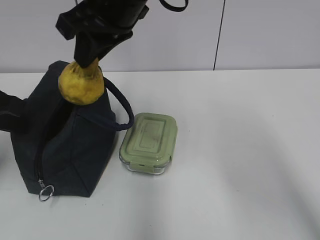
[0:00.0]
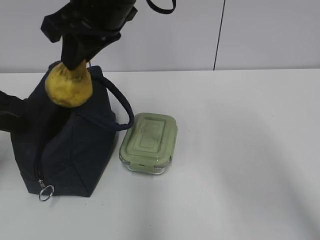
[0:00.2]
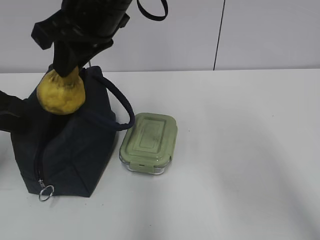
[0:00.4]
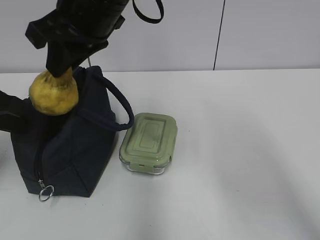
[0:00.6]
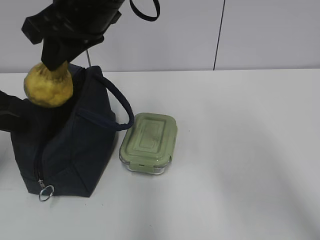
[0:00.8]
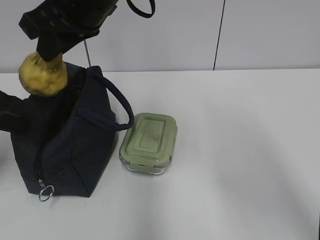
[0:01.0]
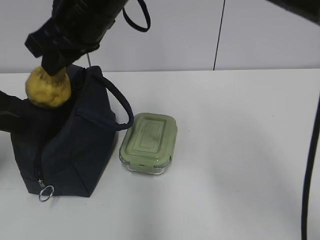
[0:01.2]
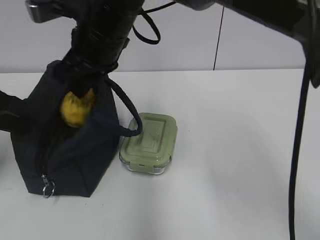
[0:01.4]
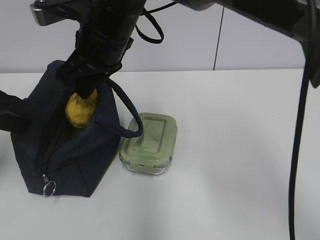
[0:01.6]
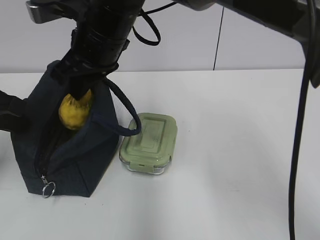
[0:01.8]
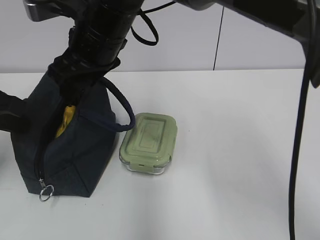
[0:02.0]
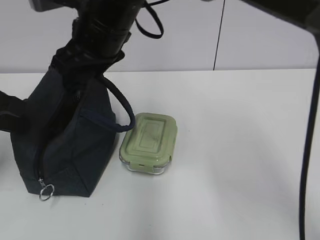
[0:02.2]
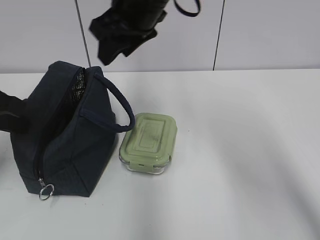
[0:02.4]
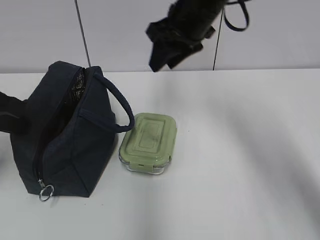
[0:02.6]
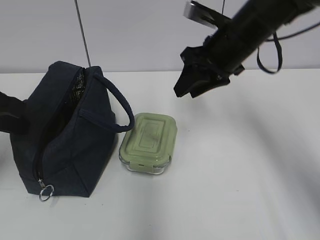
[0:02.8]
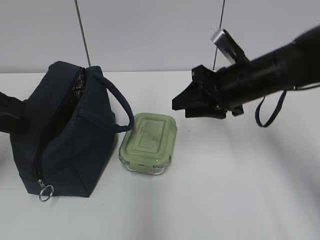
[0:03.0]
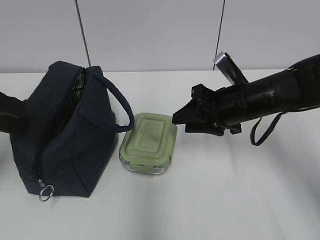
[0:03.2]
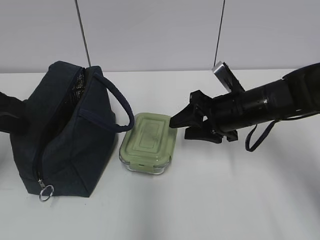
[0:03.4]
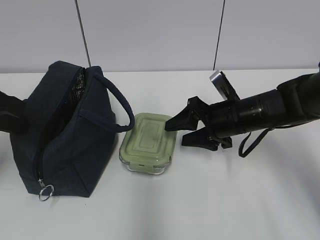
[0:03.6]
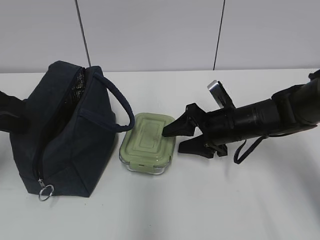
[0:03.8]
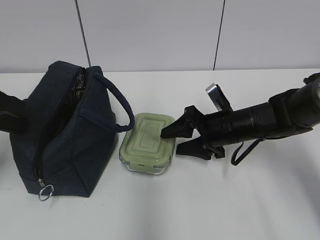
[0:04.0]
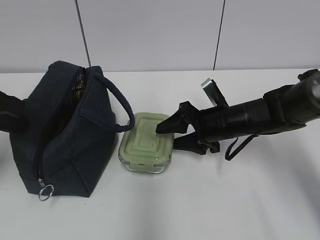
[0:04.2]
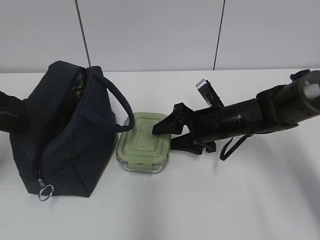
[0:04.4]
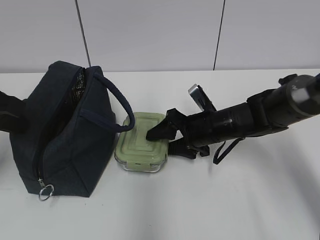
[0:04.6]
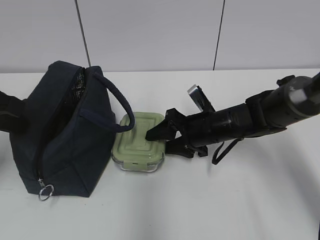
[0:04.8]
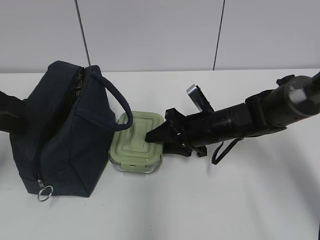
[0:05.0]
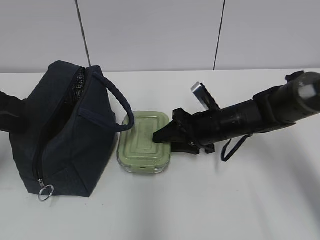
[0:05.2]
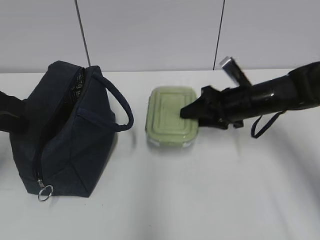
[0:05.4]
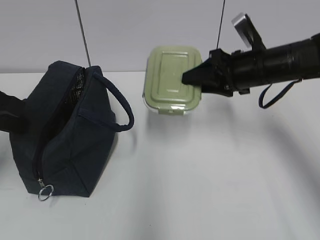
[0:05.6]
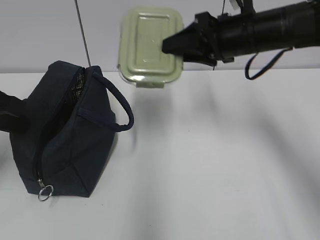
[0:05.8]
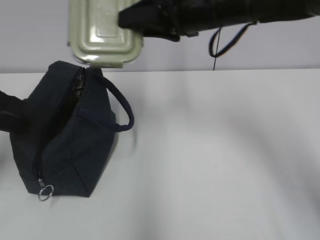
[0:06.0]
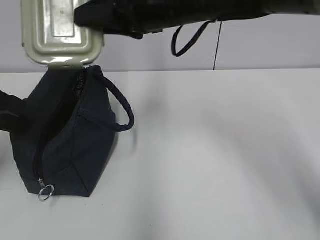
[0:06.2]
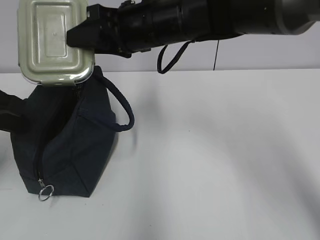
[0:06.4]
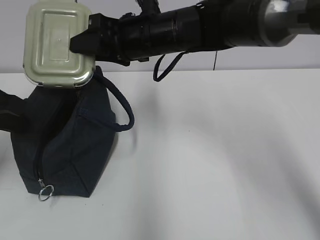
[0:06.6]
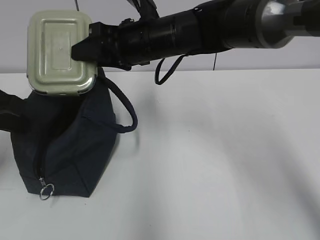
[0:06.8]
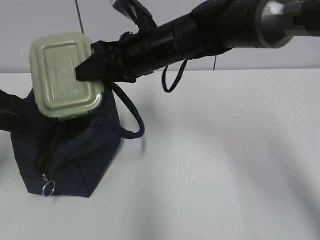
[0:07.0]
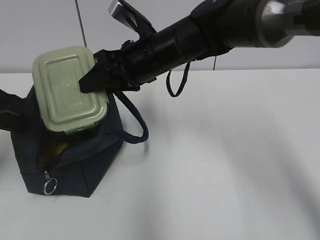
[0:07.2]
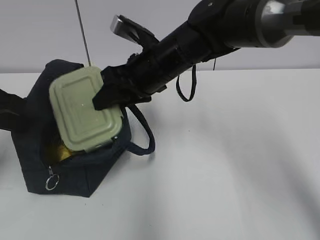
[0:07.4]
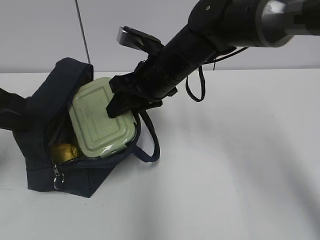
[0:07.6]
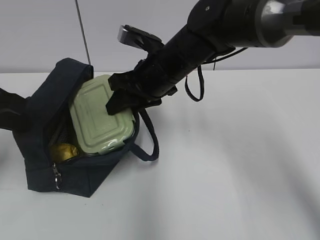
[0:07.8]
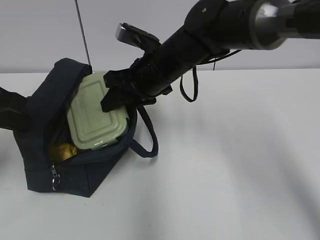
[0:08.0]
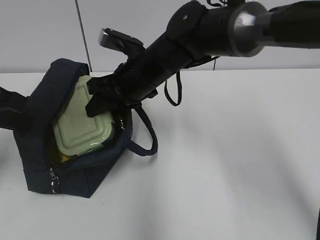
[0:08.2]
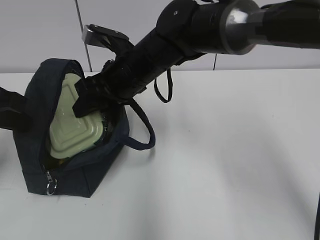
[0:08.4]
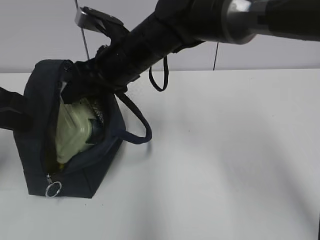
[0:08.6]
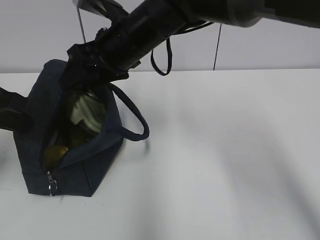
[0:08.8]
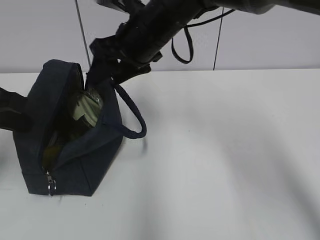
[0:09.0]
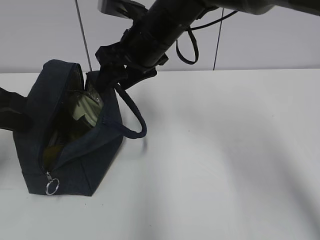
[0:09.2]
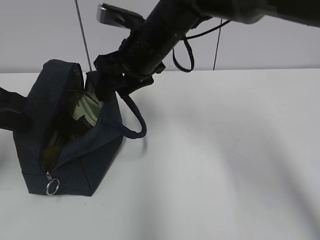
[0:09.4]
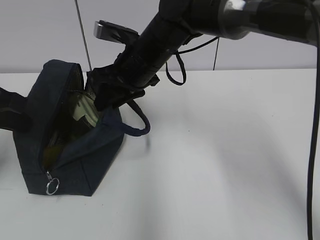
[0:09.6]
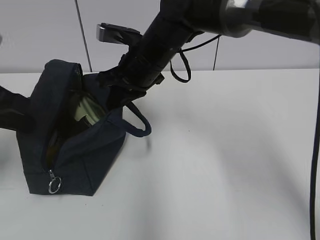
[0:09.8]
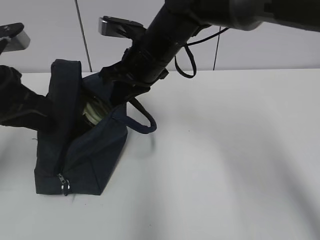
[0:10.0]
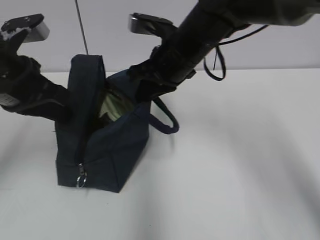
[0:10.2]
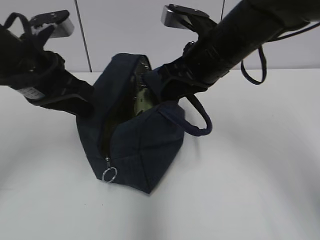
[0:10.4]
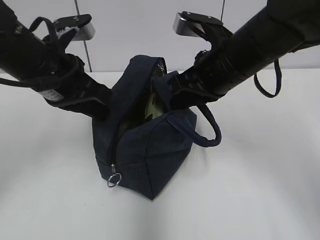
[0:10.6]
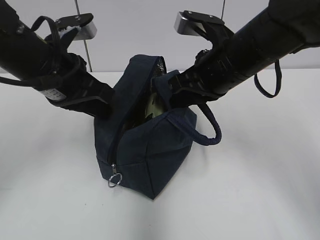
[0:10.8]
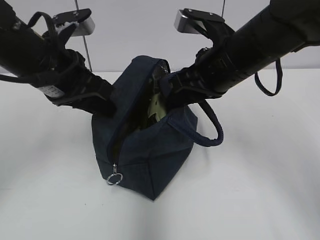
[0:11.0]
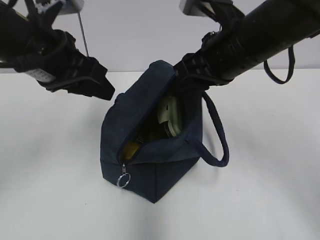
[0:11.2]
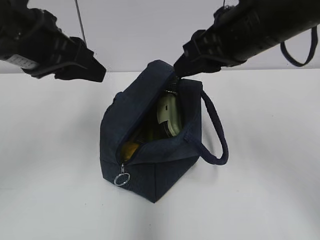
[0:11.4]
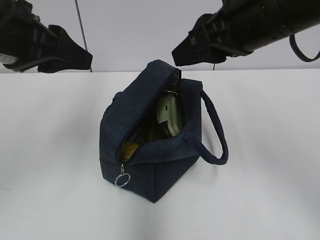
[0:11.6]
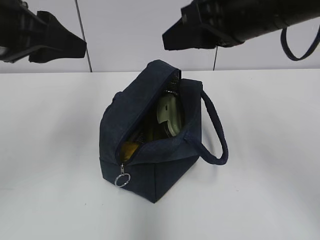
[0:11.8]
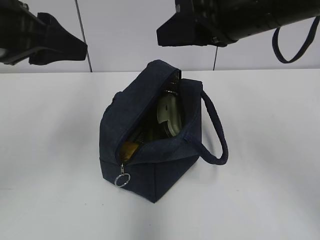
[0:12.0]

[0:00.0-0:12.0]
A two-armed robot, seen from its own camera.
0:00.0 to 0:01.6: The right gripper heads downward, covering approximately 5 cm.
0:01.6 to 0:03.0: The right gripper travels to the right and downward by approximately 20 cm.
0:03.0 to 0:04.4: The right gripper heads downward, covering approximately 10 cm.
0:04.4 to 0:06.0: The right gripper travels upward by roughly 20 cm, and closes its fingers.
0:06.0 to 0:07.6: The right gripper goes roughly 10 cm downward.
0:07.6 to 0:09.0: The right gripper travels upward by approximately 5 cm.
0:09.0 to 0:10.4: Both grippers move to the right, roughly 10 cm. The right gripper closes its fingers.
0:10.4 to 0:12.0: The grippers both shift upward and backward by some 10 cm. The right gripper opens its fingers. The left gripper opens up.

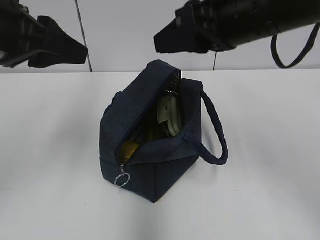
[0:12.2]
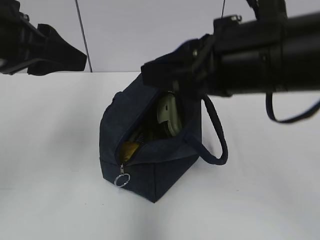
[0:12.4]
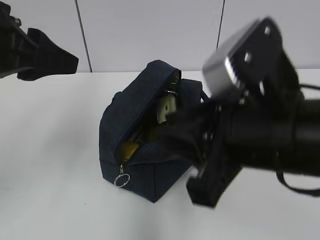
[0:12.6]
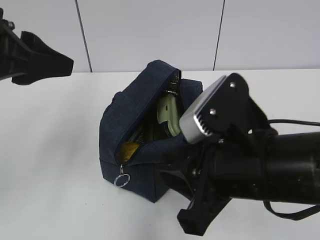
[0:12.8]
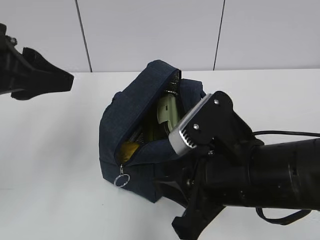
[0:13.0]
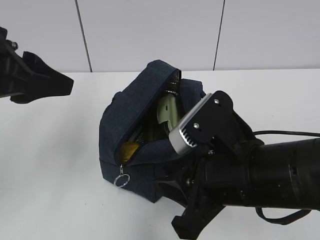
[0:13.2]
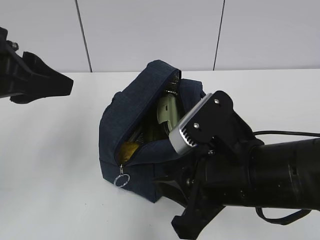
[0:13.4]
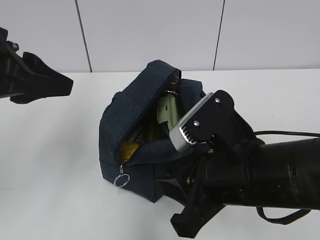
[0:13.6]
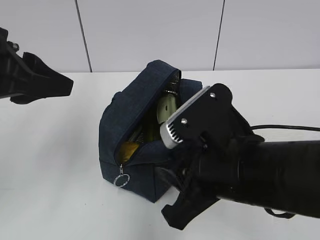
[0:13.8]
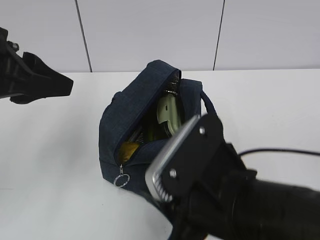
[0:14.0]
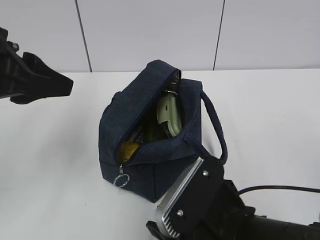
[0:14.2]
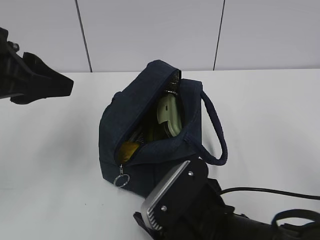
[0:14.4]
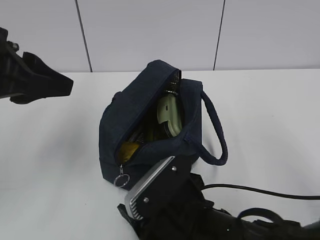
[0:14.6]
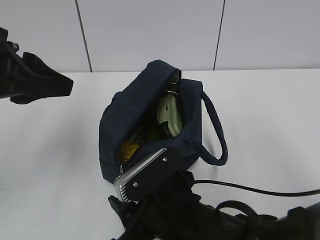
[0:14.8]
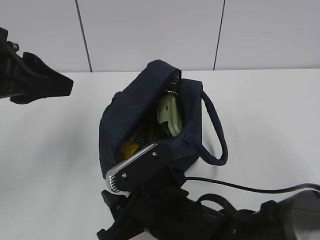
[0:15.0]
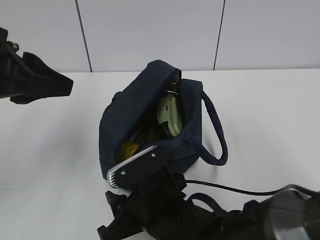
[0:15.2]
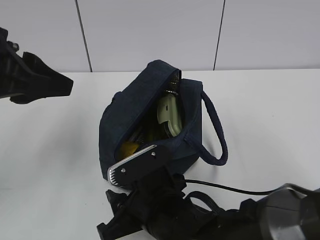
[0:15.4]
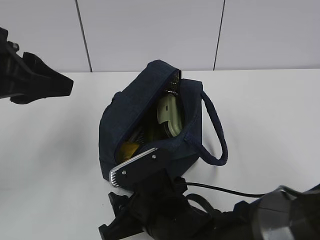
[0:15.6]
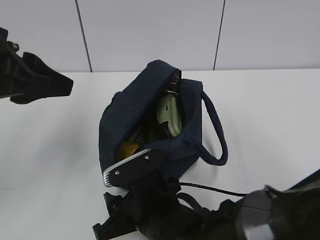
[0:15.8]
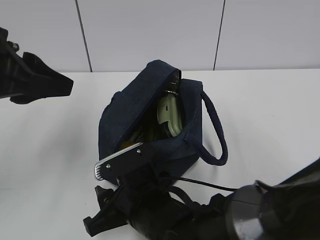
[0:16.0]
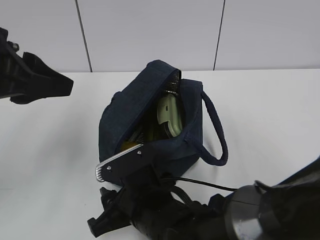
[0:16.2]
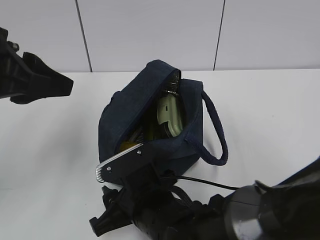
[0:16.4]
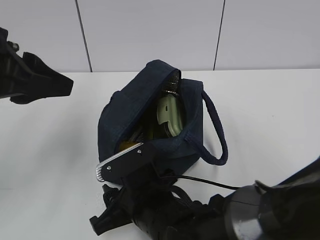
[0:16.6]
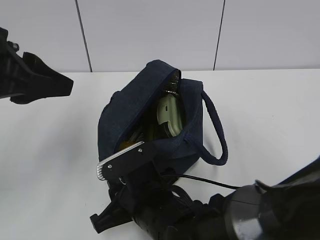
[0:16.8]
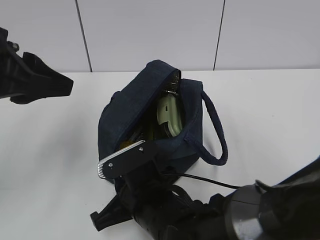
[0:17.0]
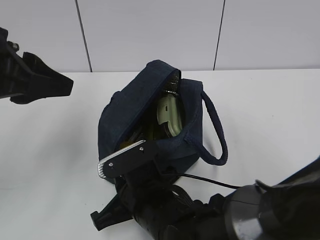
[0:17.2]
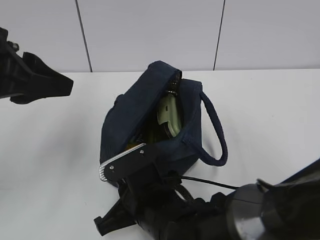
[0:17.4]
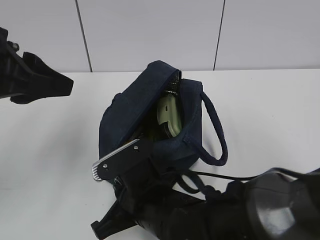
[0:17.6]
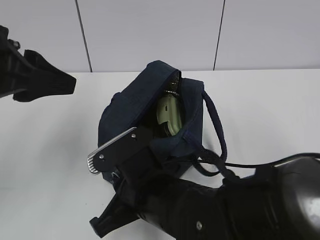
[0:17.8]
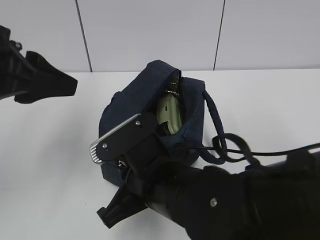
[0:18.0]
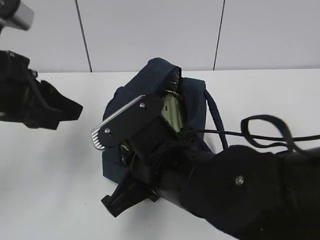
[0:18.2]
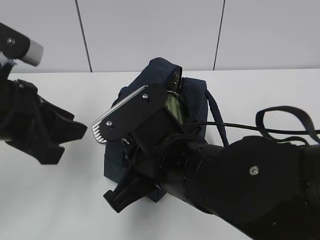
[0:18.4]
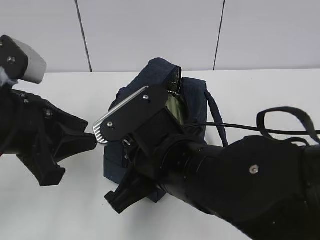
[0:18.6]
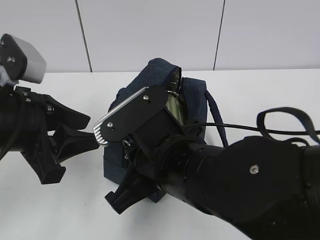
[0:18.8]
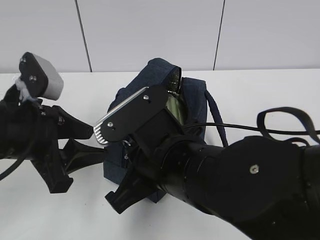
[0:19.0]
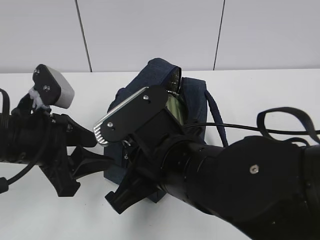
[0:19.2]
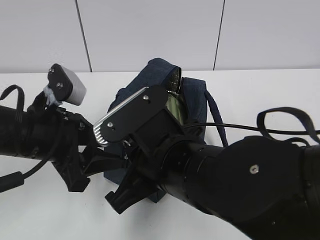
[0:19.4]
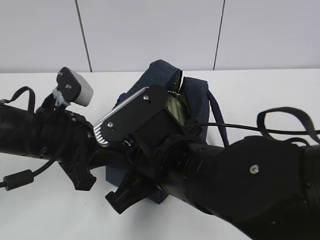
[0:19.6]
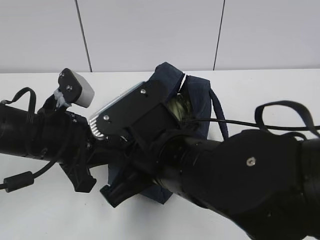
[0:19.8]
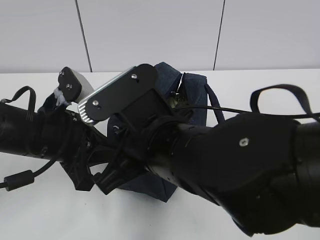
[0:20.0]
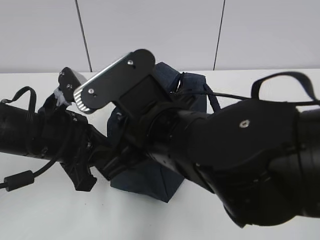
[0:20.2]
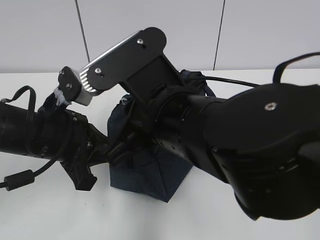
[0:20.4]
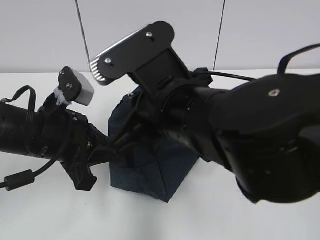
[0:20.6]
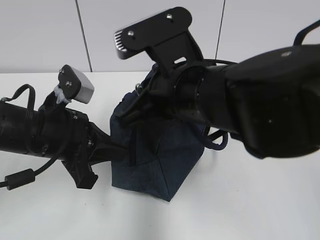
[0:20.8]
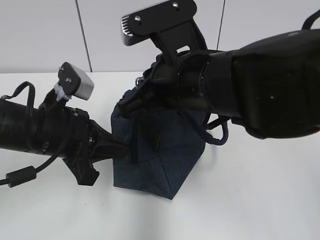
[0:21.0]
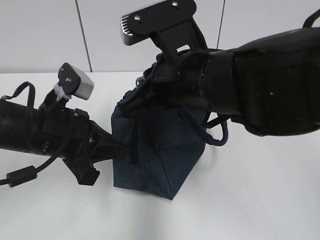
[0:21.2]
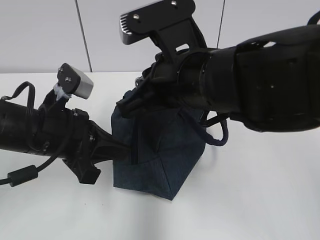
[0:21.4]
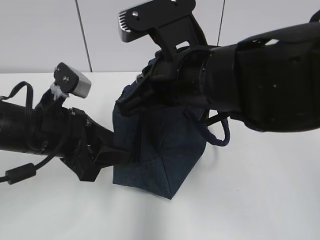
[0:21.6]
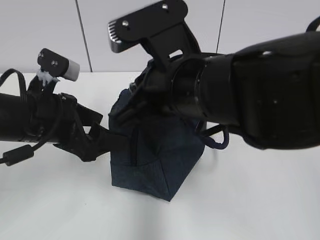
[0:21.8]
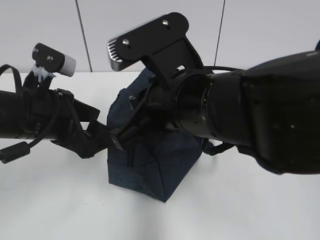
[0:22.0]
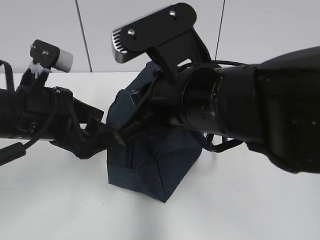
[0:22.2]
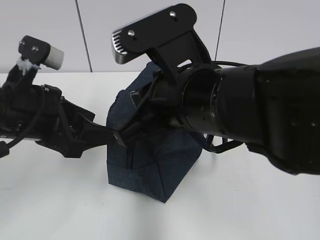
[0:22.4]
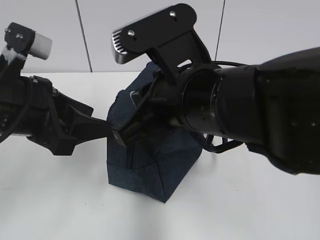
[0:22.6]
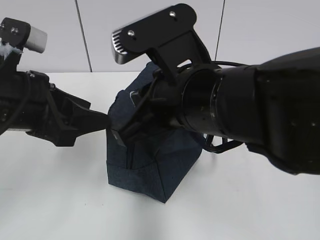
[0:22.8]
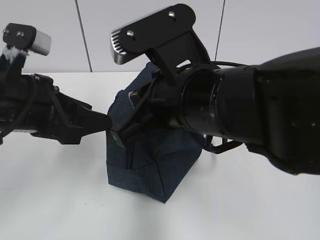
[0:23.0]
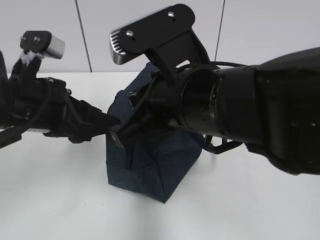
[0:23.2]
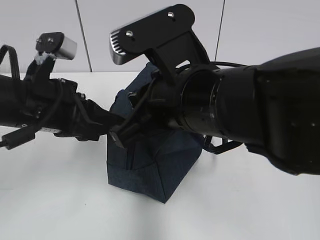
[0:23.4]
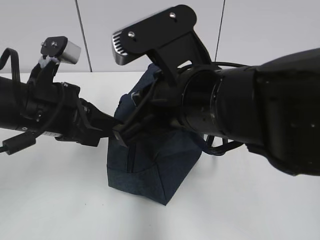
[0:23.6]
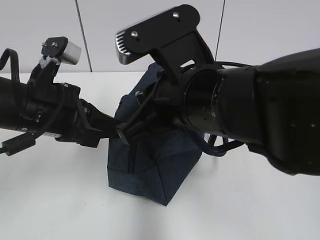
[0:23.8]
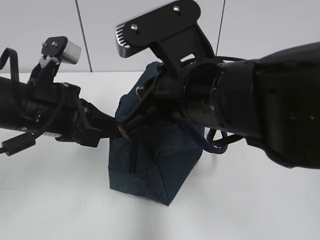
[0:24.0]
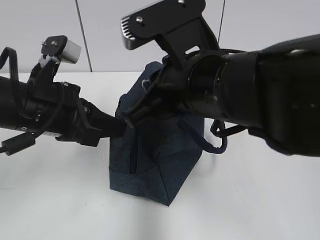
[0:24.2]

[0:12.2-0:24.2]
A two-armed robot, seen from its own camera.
0:12.2 to 0:13.8: The right gripper is displaced downward and backward by roughly 15 cm.
0:13.8 to 0:15.2: The right gripper goes approximately 15 cm downward and to the left.
0:15.2 to 0:16.6: The grippers make only small movements.
0:16.6 to 0:18.2: The right gripper travels upward by some 10 cm, and closes.
0:18.2 to 0:19.8: The left gripper heads downward, covering some 10 cm, and closes its fingers.
0:19.8 to 0:21.2: The right gripper shifts approximately 10 cm upward and forward.
0:21.2 to 0:22.6: The left gripper moves upward, approximately 5 cm, and opens.
0:22.6 to 0:24.2: The left gripper closes.
